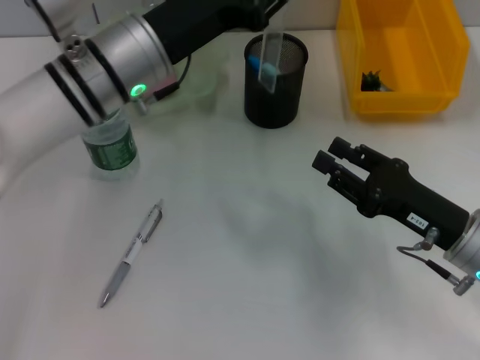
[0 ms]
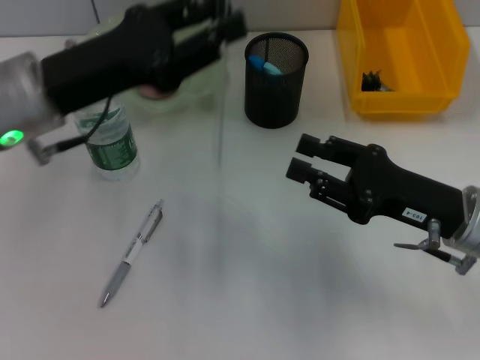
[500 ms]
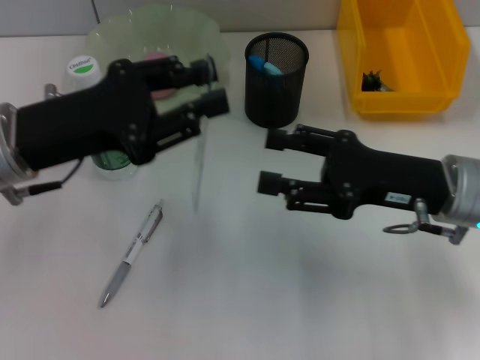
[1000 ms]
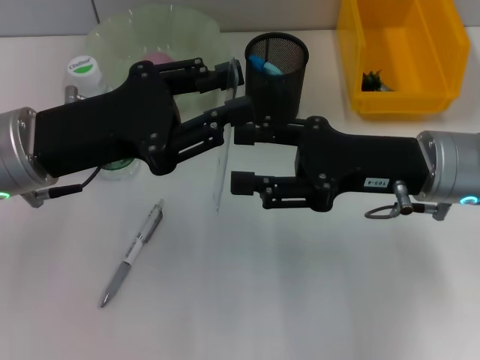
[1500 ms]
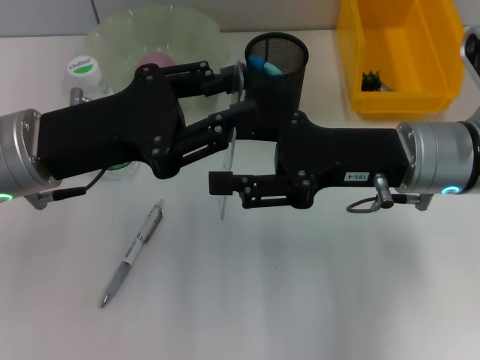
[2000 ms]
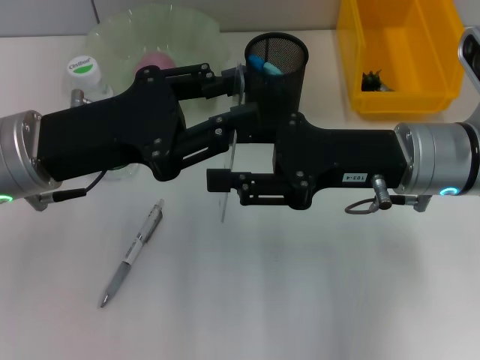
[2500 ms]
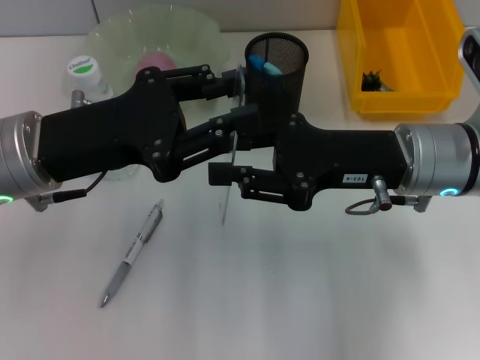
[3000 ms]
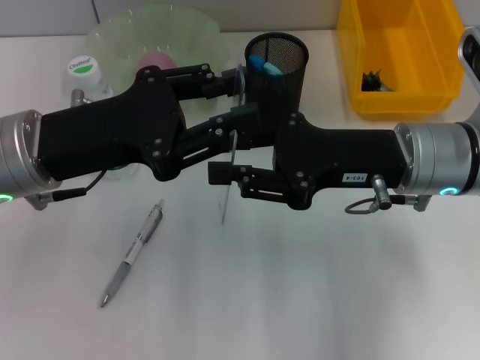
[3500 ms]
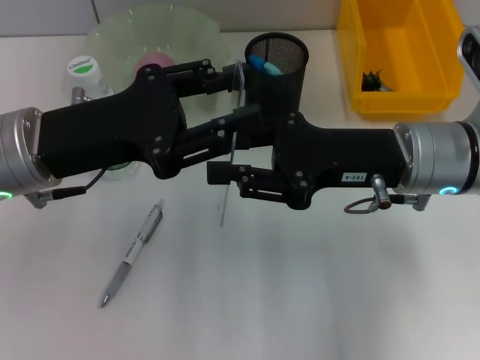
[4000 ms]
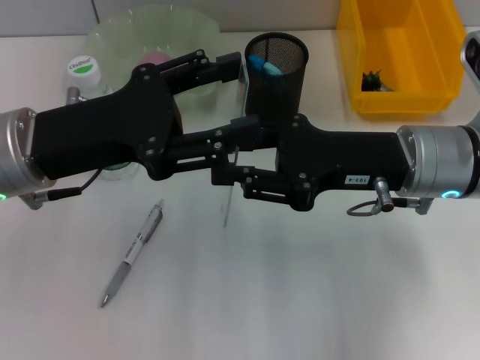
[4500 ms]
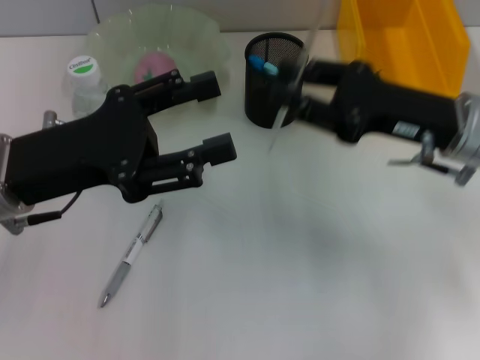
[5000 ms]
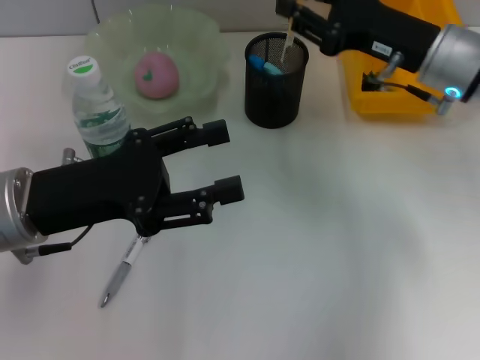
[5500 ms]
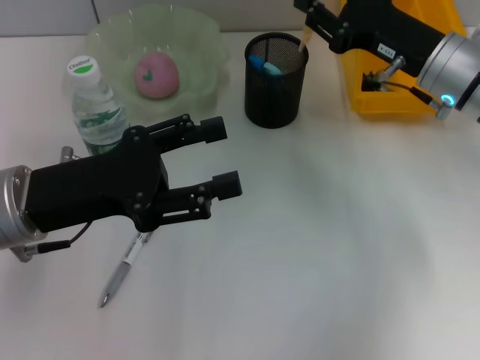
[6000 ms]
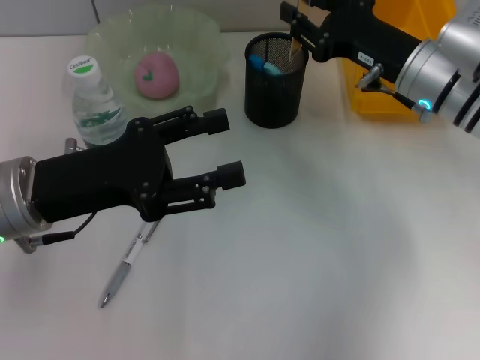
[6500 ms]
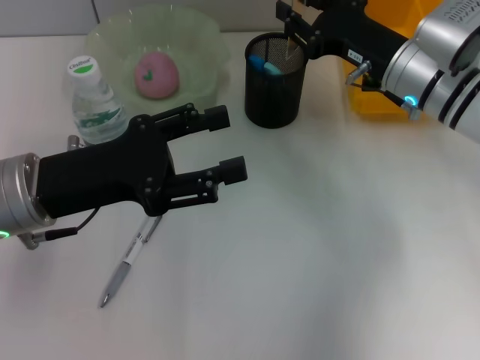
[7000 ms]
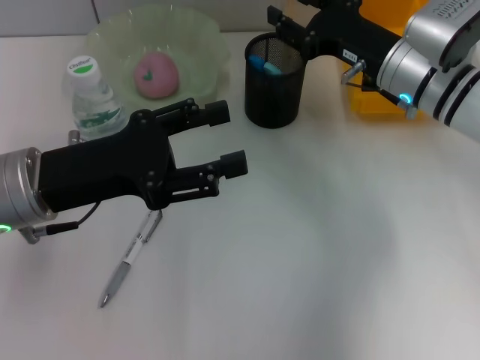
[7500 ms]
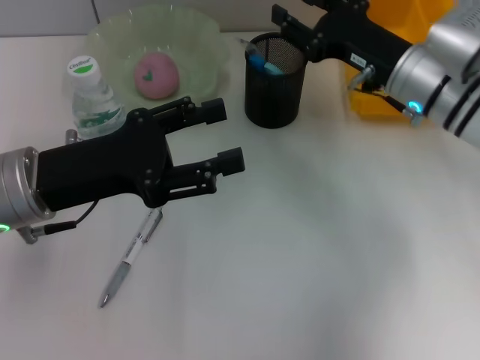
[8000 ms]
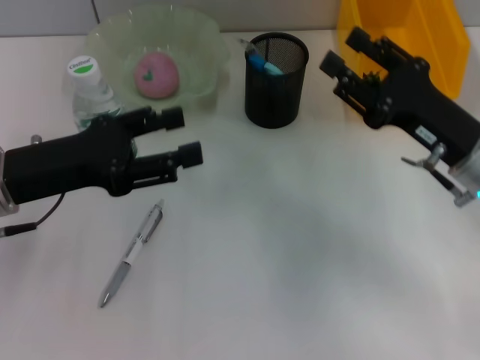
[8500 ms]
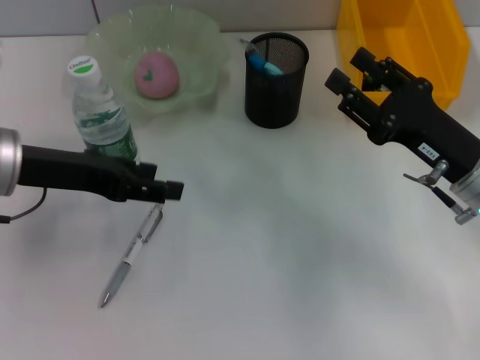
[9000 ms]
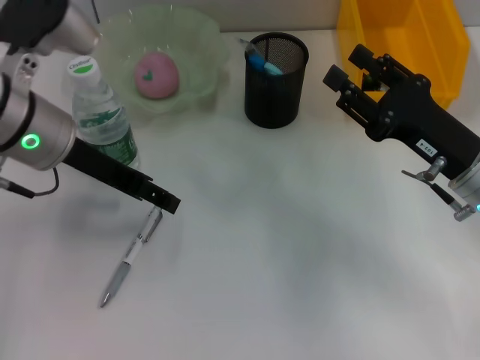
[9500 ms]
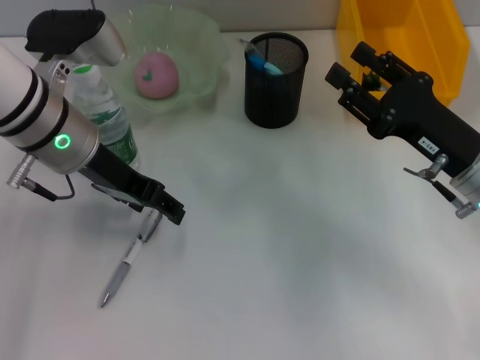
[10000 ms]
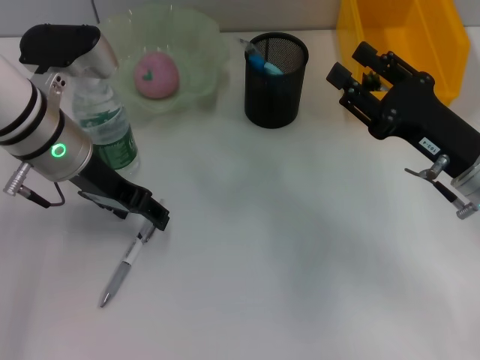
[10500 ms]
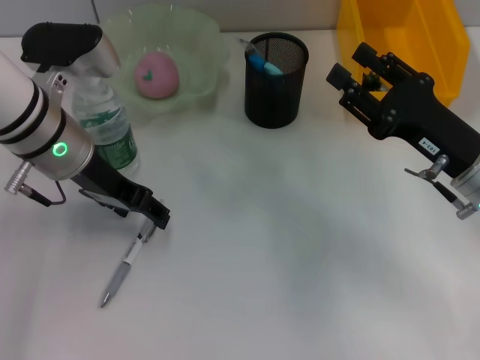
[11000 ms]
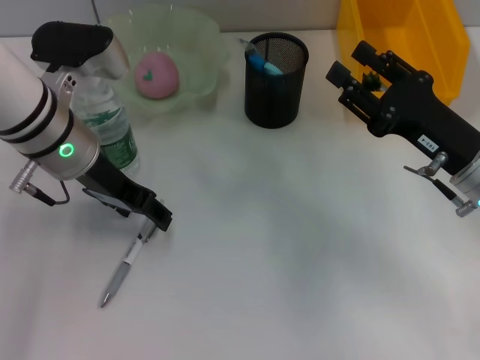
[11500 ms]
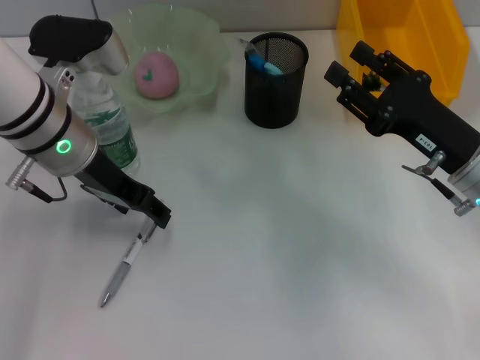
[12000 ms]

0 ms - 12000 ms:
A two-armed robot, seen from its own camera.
Step, 0 ms - 4000 ms: Pass the ruler from the left hand to the right hand.
Step, 4500 ms - 8000 ms: Place the ruler into the pen holder with the right hand.
0 ms - 2000 ms: The right gripper moves upward, to the left and forward, roughly 15 cm. Meanwhile the left gripper travels backward and to the left by some 10 cm.
2000 ms - 4000 ms: The right gripper closes.
4000 ms - 6000 ms: The left gripper opens up; the right gripper moves forward, about 5 cm.
6000 ms - 8000 ms: The grippers stay close to where they were, moving slightly.
8000 ms - 10000 ms: The right gripper shifts roughly 10 cm backward. The left gripper moves forward, about 10 cm.
10000 ms - 12000 ms: The grippers make only small movements.

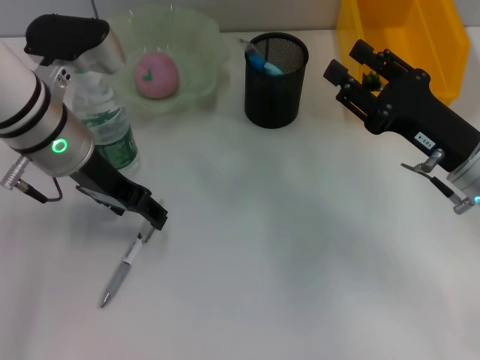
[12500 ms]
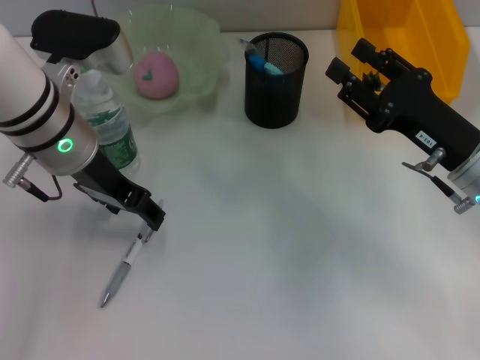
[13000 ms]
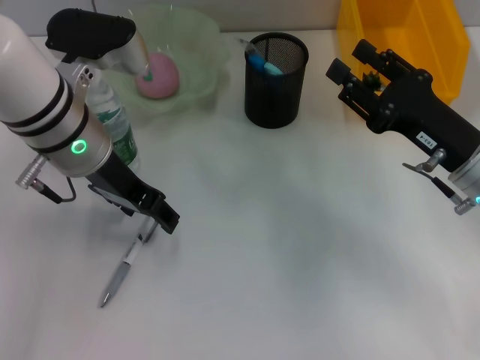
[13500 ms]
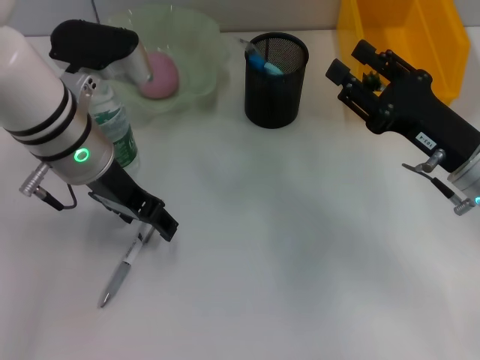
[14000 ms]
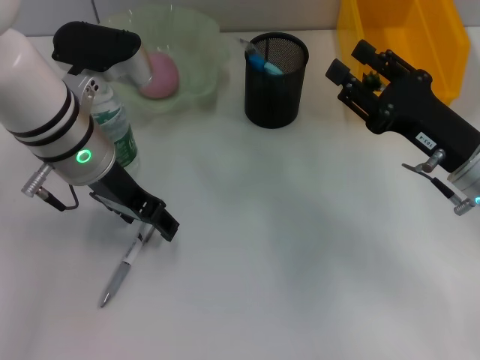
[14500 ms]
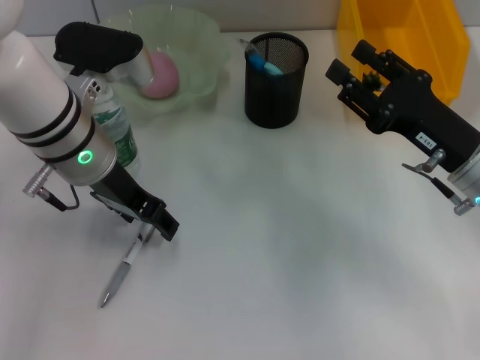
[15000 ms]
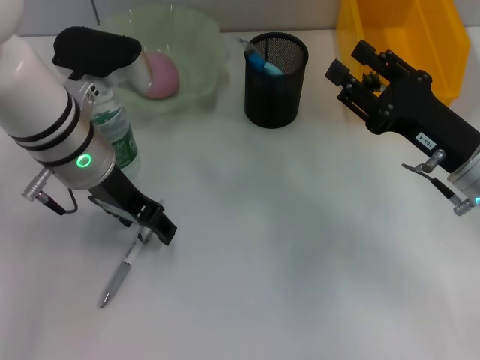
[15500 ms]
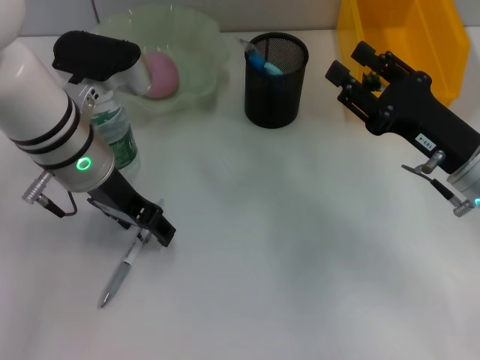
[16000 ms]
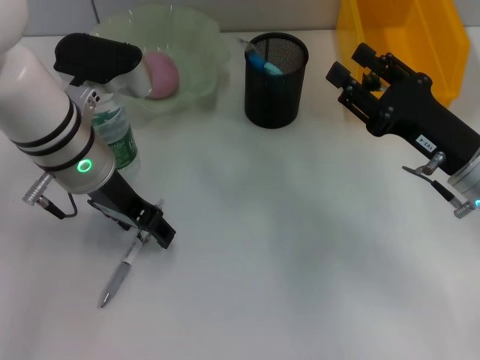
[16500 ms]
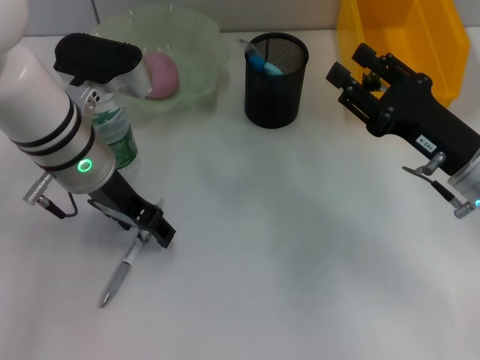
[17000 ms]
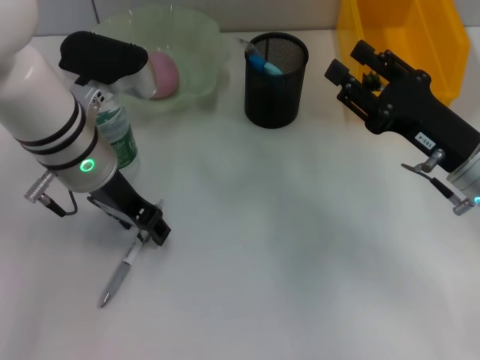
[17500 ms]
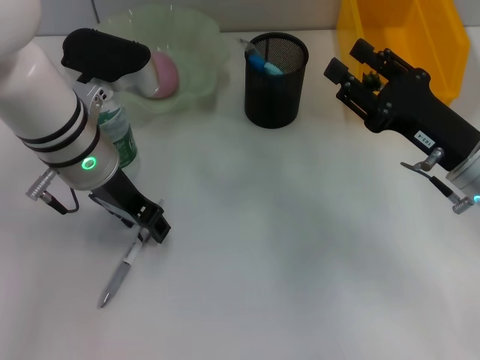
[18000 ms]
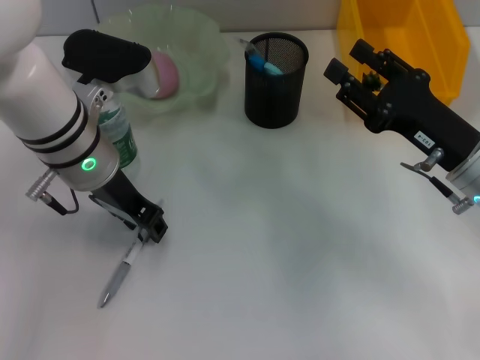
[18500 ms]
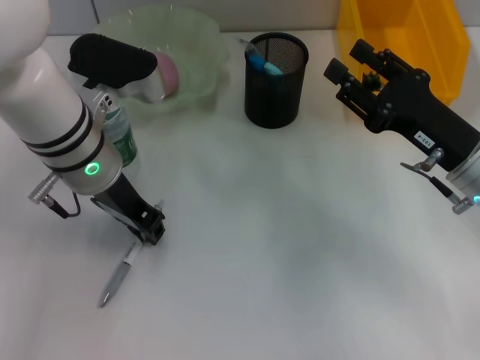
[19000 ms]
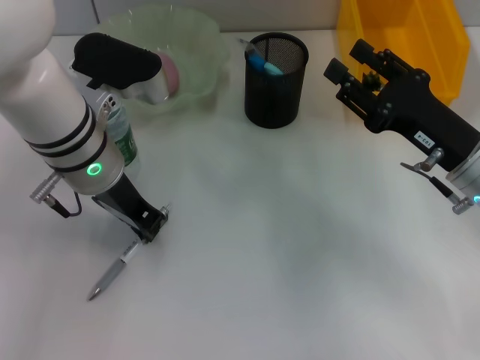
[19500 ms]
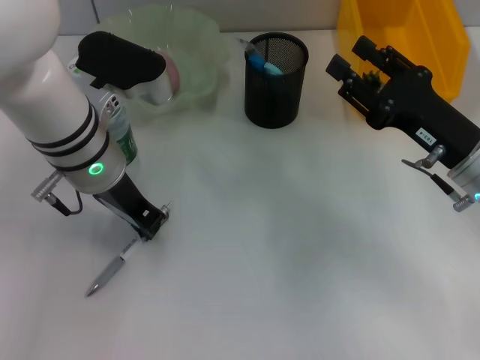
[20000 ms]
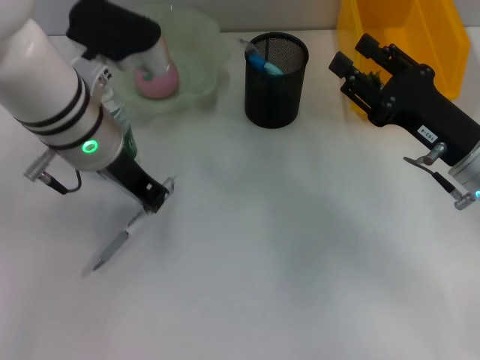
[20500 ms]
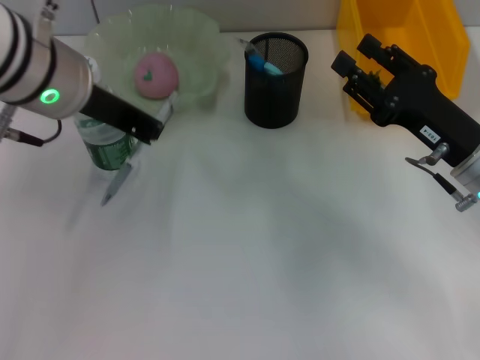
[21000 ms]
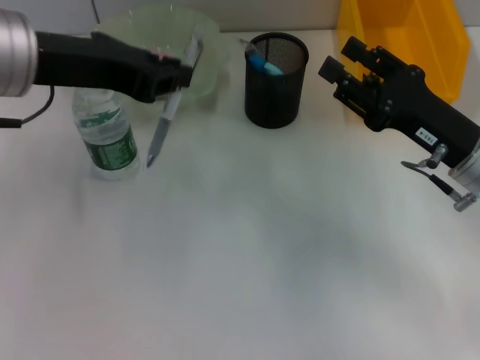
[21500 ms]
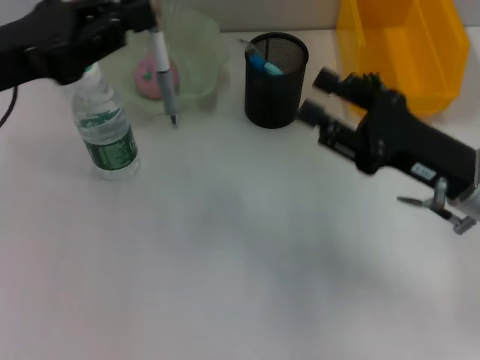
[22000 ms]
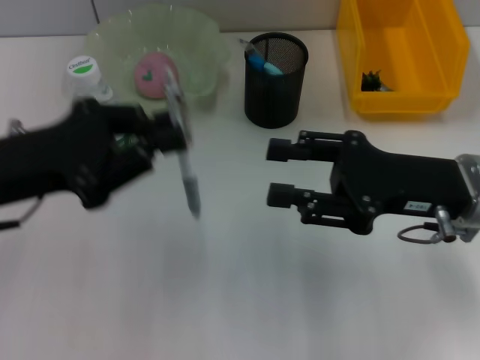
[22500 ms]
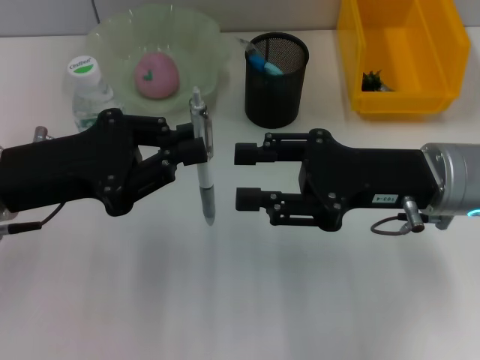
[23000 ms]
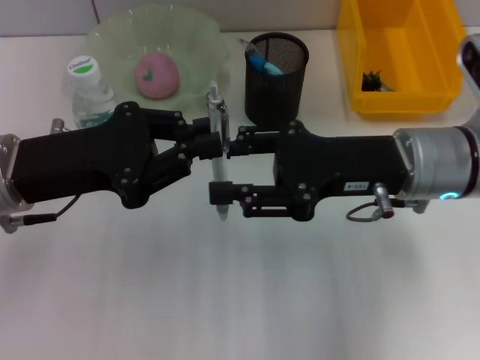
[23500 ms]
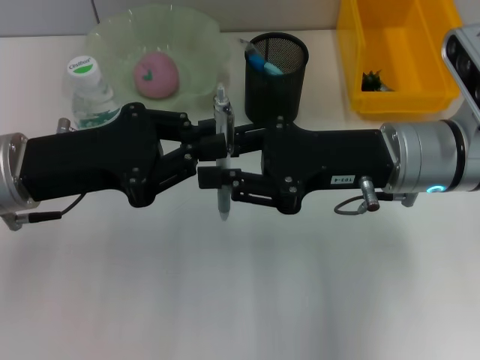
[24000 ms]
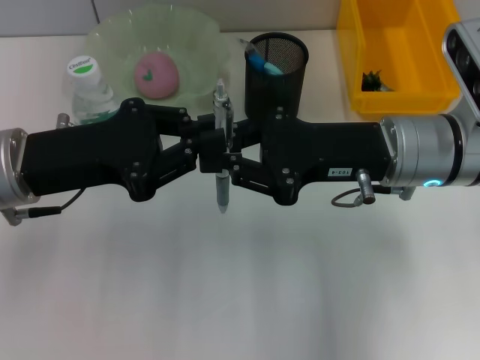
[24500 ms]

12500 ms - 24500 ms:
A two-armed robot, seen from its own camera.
Step, 12500 ms - 19000 ms: Grab the gray spring-action pen with the left hand.
12500 ms - 14500 ms: The grippers make only small movements.
14500 ms - 16500 ms: Neither gripper changes place.
16500 ms - 18500 ms: The left gripper closes up.
18500 ms - 20500 ms: The left gripper closes its fingers.
20500 ms - 22500 ms: The left gripper is displaced to the left and backward by about 15 cm. The right gripper shifts by some 5 cm.
22500 ms - 24500 ms: The right gripper moves to the left, approximately 5 cm, and closes.

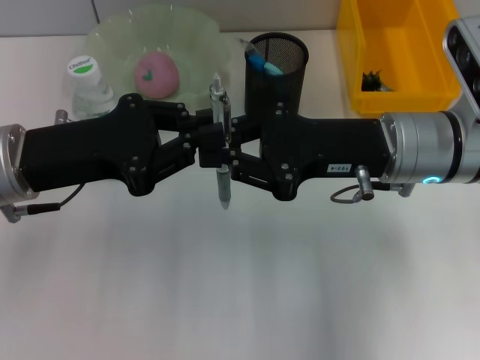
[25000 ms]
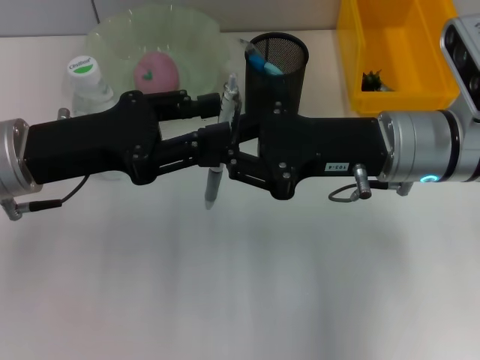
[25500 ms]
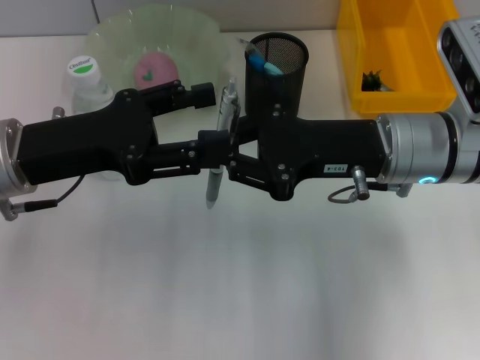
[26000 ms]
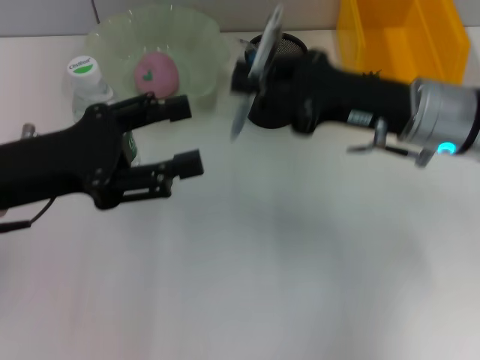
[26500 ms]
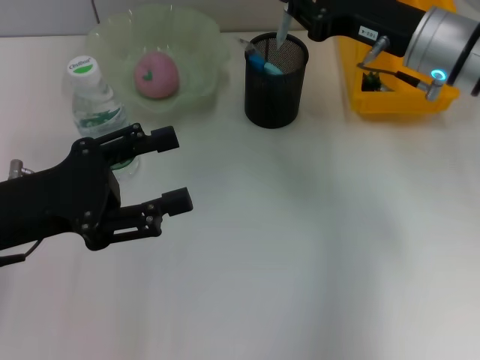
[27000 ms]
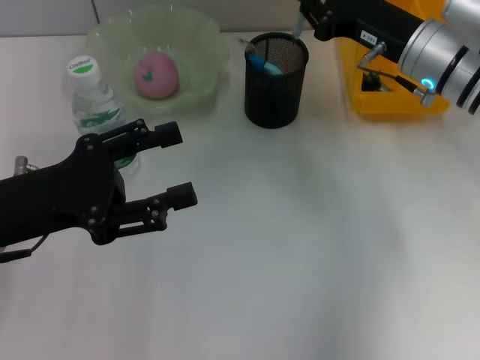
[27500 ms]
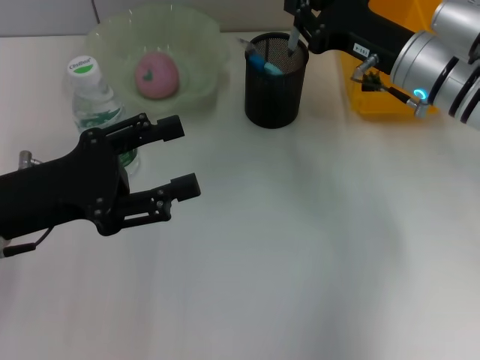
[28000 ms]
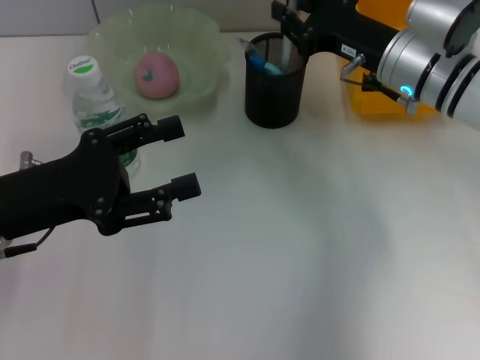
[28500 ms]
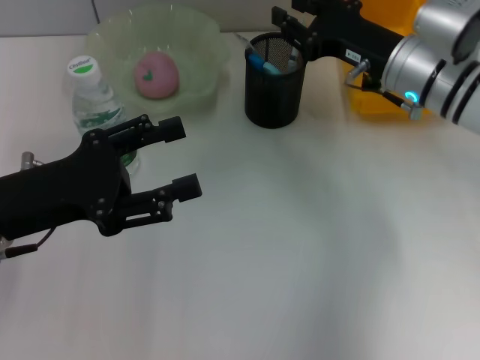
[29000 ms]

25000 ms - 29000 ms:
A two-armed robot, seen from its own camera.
Step, 26500 ms - 28500 ms: Place the gray spring-action pen into the pen holder with the right hand.
25000 ms - 27000 ms: The right gripper shifts about 10 cm forward. The left gripper moves some 5 cm, and opens up.
27000 ms - 29000 ms: The right gripper opens its fingers.
